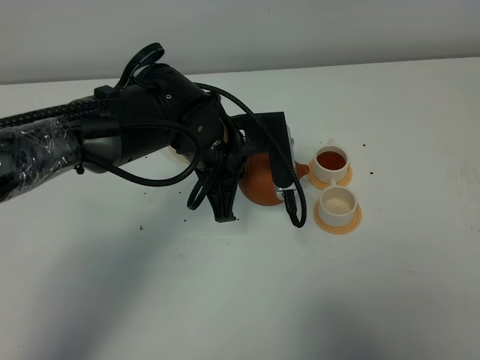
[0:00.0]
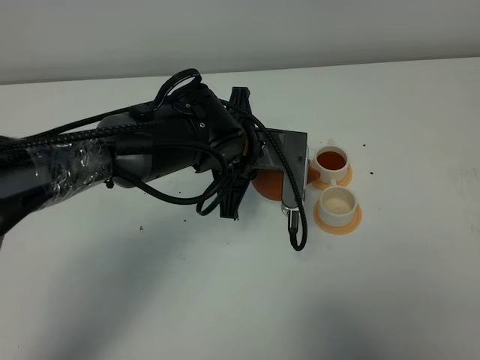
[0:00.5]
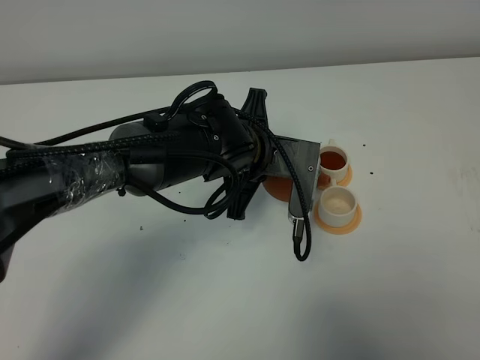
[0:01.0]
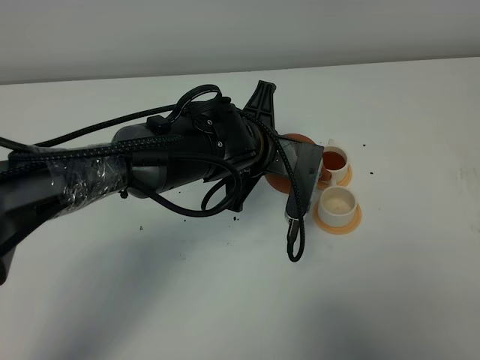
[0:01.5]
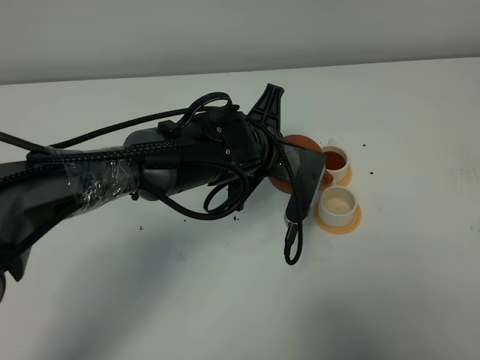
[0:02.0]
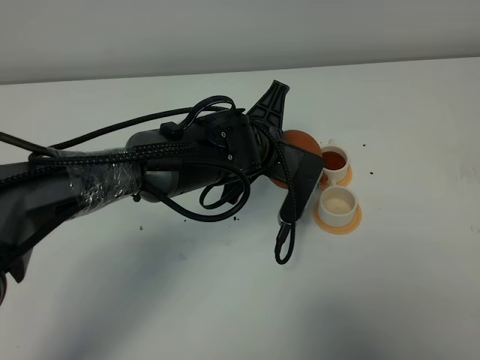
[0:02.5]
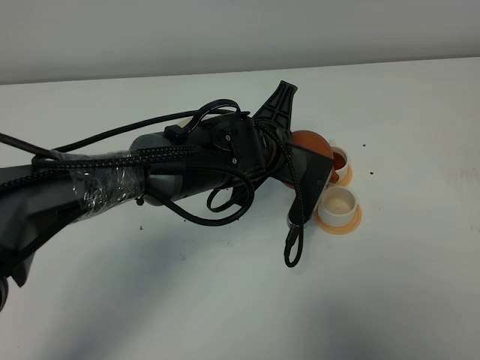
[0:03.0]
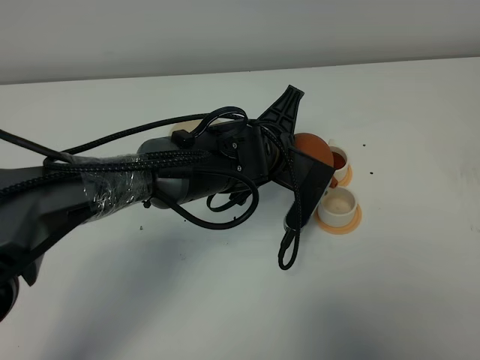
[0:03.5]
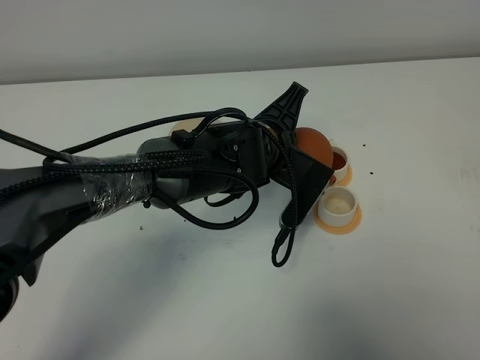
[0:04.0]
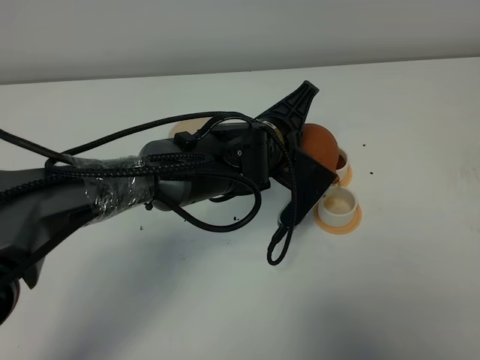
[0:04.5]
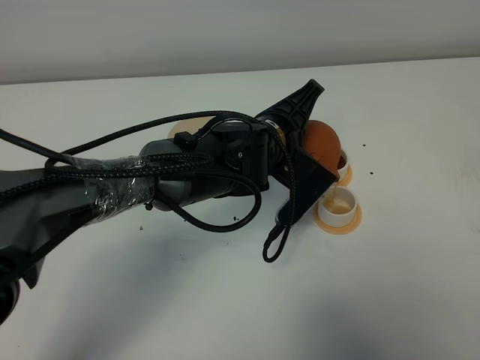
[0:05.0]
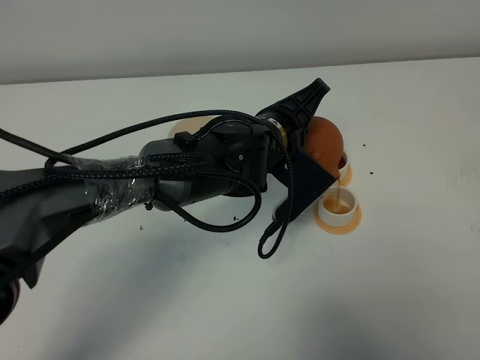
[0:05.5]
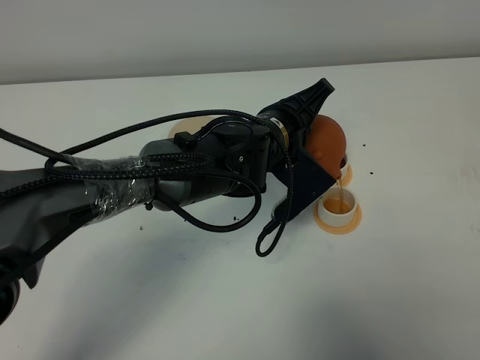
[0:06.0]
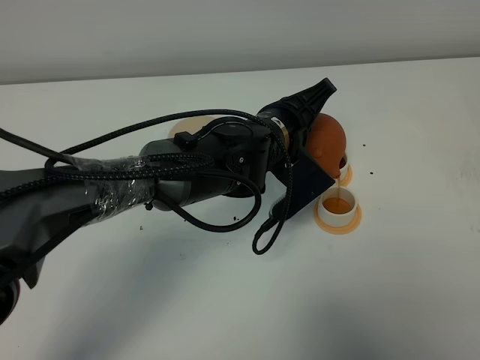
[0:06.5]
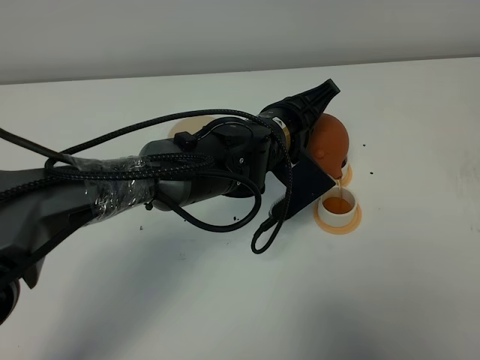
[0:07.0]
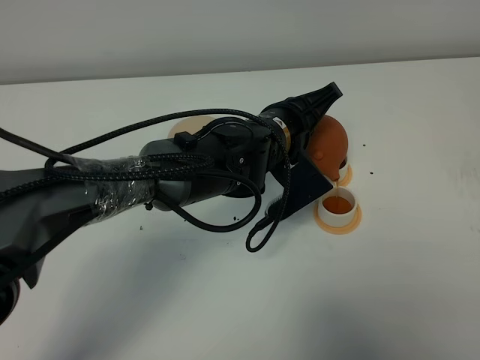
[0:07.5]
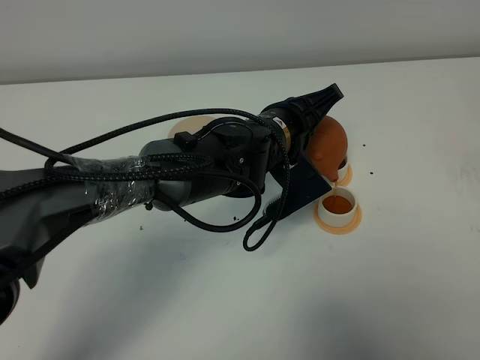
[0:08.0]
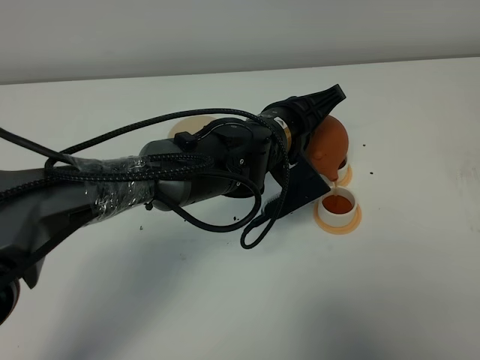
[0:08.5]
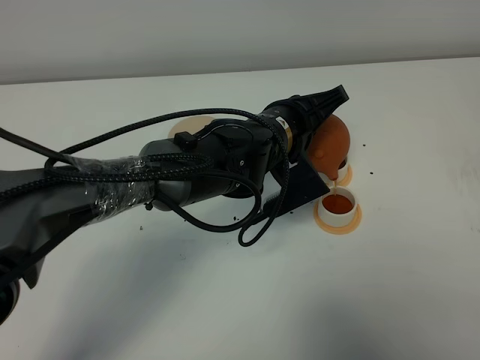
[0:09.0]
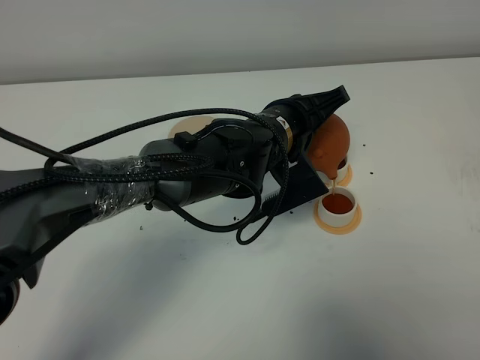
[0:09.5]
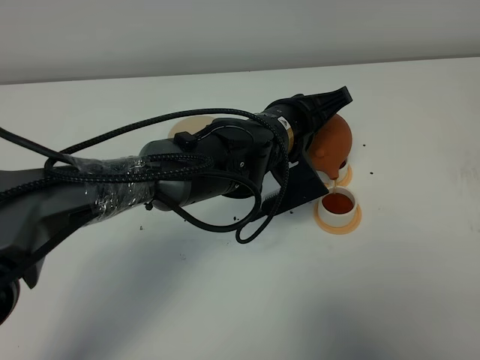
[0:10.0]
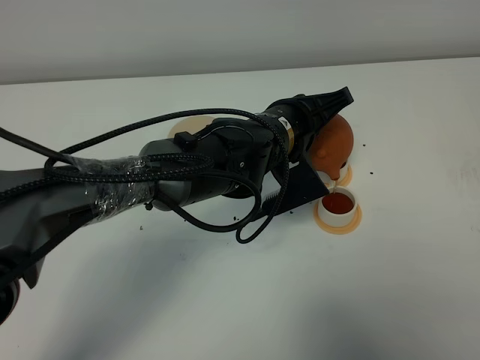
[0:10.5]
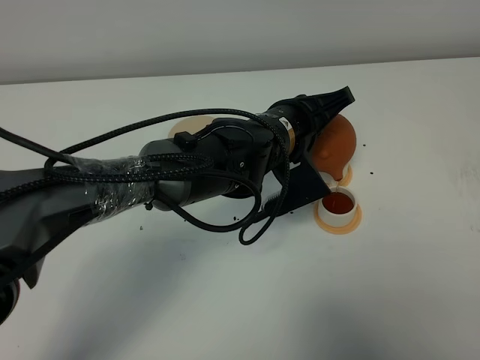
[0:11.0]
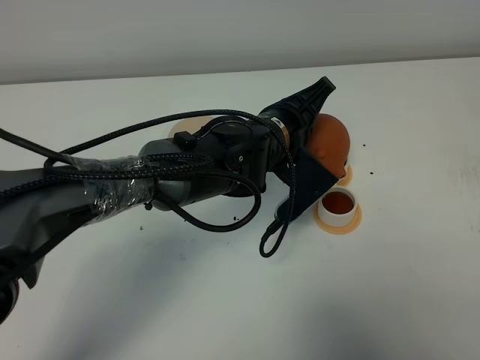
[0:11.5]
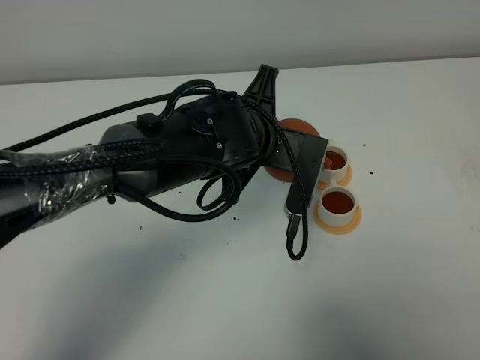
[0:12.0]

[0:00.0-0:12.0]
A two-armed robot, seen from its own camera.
Task of the whole recording: grasp the brown teapot and pour the tea into the two white teacups one by one, put the brown teapot back in its original place.
Step, 0:00.0 to 0:11.5: Pour tea into the teacup with the left gripper.
0:00.0 to 0:02.0: The left gripper ends up some 5 cm from where it was.
0:02.0 to 0:04.0: The grippers stay close to where they were, moving slightly.
0:04.0 to 0:06.0: The grippers move only a little.
0:06.0 to 0:10.0: The grippers stay close to where they were, moving slightly.
0:10.0 to 0:12.0: The left gripper changes place by roughly 5 cm.

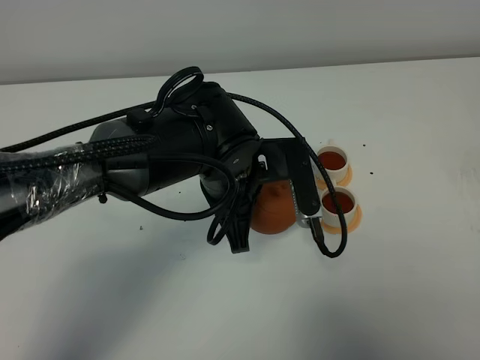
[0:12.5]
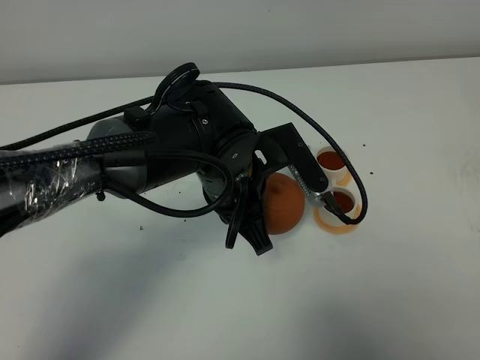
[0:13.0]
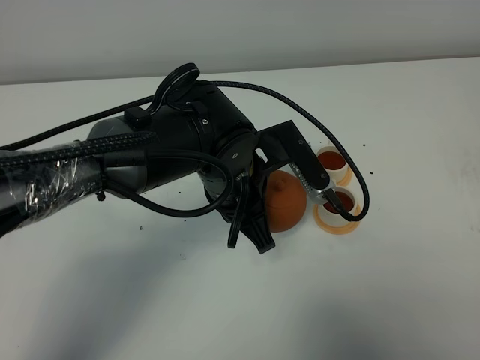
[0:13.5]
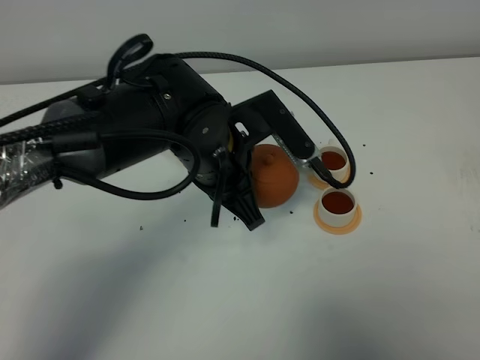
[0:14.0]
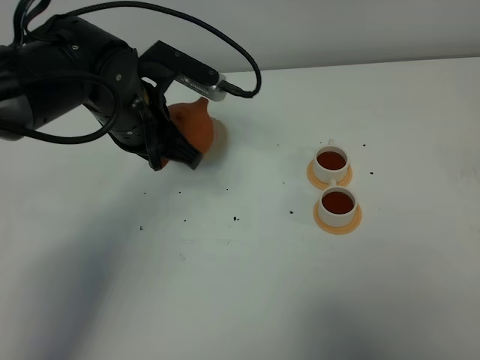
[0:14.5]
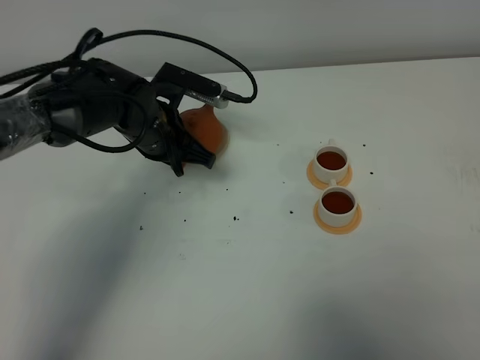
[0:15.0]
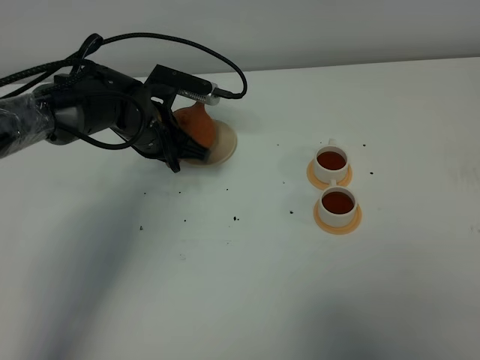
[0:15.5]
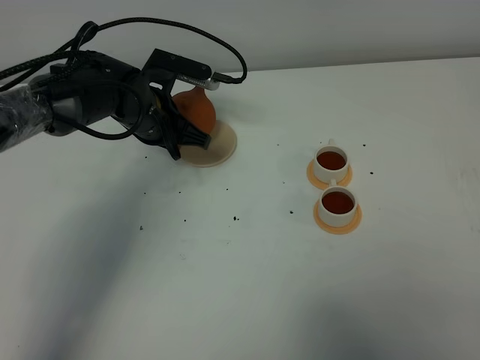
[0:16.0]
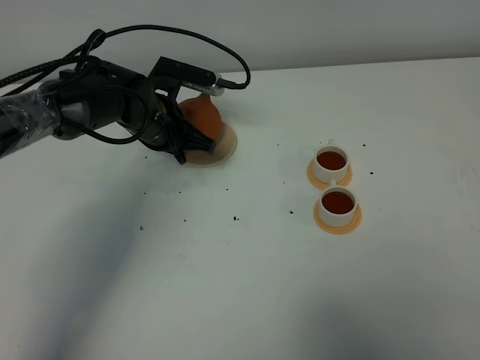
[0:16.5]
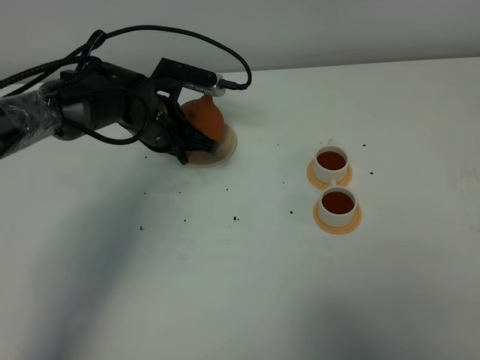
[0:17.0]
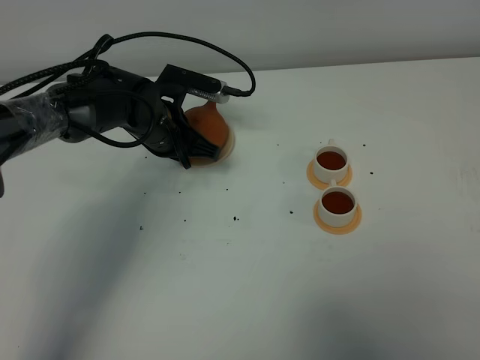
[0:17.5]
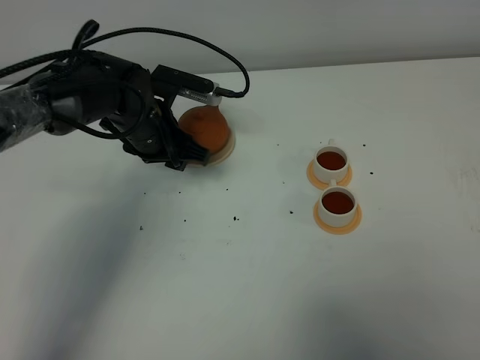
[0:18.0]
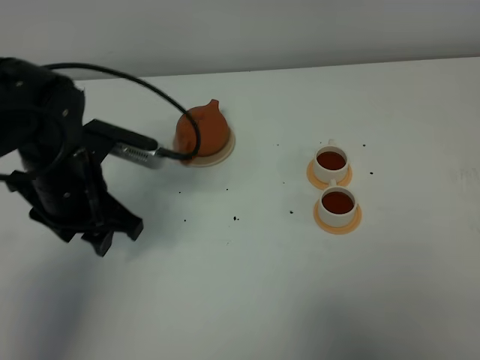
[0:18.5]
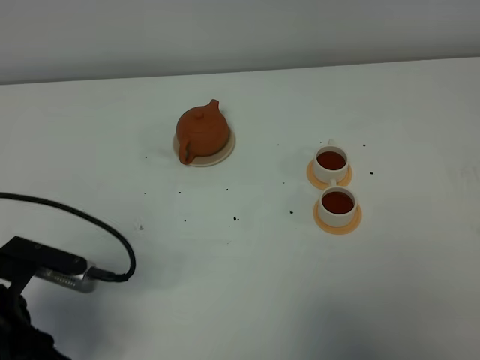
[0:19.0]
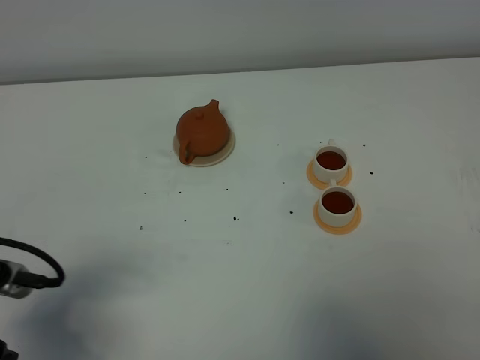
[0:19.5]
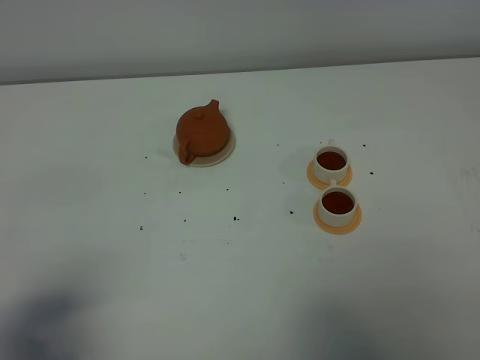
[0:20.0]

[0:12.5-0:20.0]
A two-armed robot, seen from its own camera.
Task of the whole recording: grasp the brown teapot and pour the tea into the two white teacups one by one, put the brown teapot back in its original place.
0:12.5 to 0:14.5: The left gripper travels to the left and forward by approximately 15 cm.
0:14.5 to 0:16.5: The left gripper moves downward and forward, some 10 cm.
0:16.5 to 0:18.0: The left gripper opens its fingers.
0:18.0 to 0:20.0: The left gripper travels backward and to the left by roughly 40 cm.

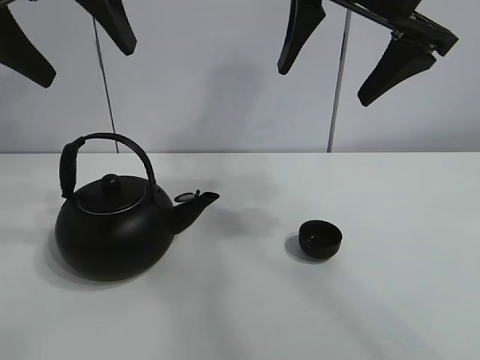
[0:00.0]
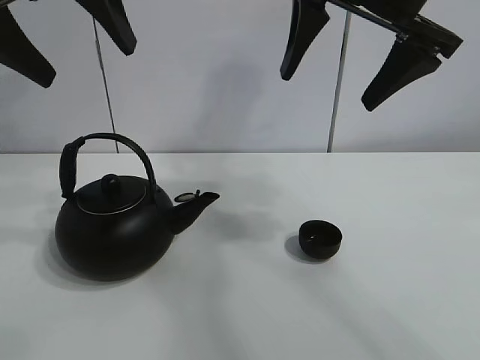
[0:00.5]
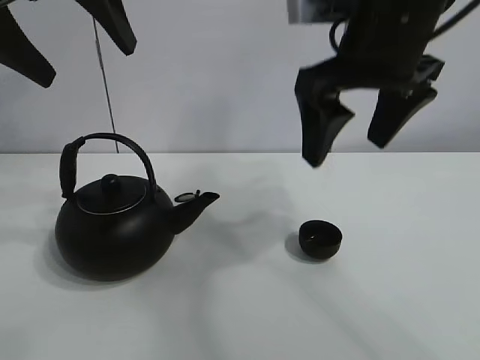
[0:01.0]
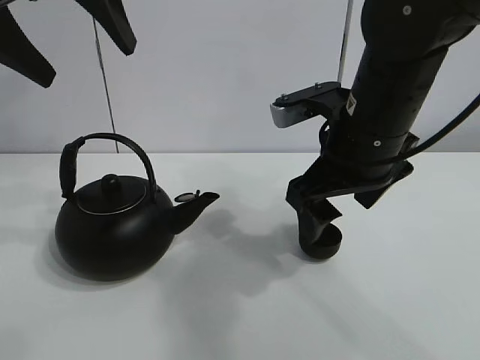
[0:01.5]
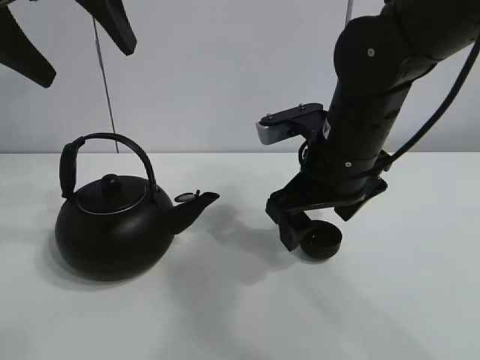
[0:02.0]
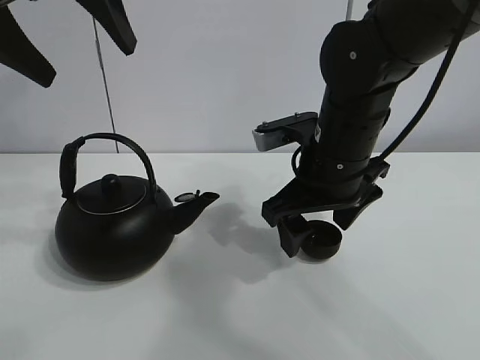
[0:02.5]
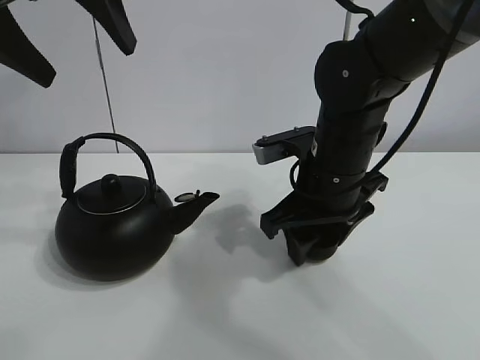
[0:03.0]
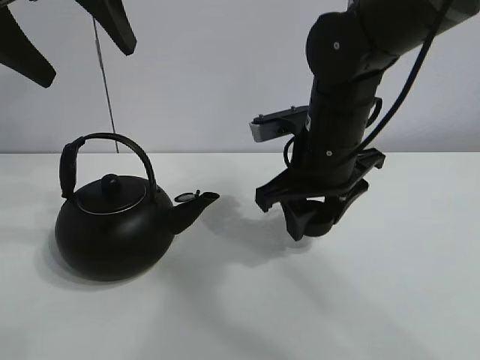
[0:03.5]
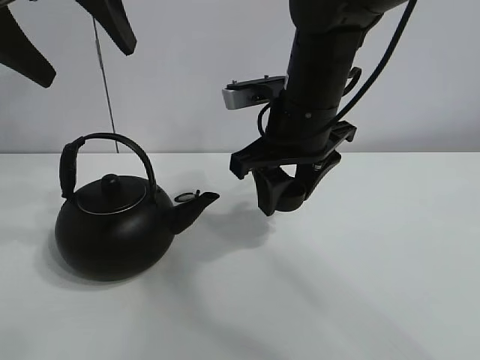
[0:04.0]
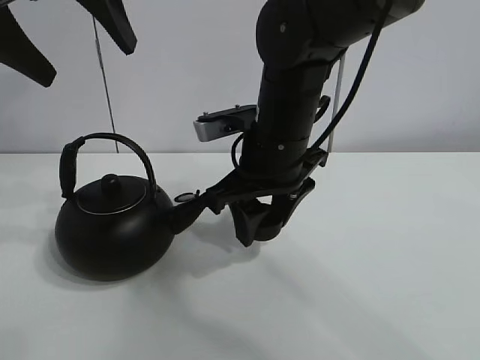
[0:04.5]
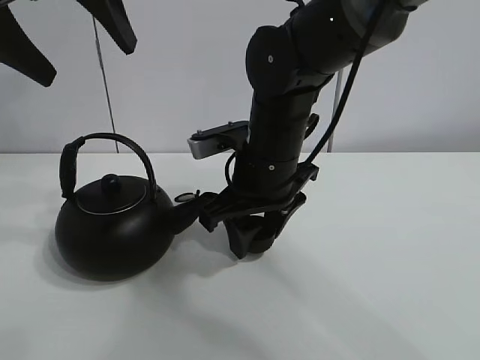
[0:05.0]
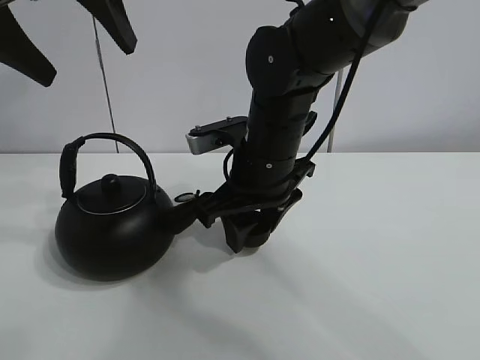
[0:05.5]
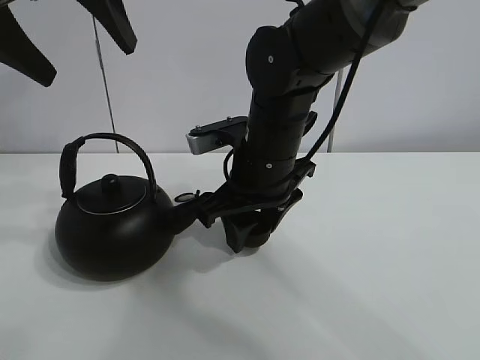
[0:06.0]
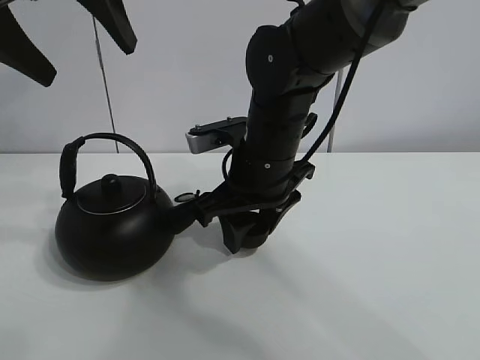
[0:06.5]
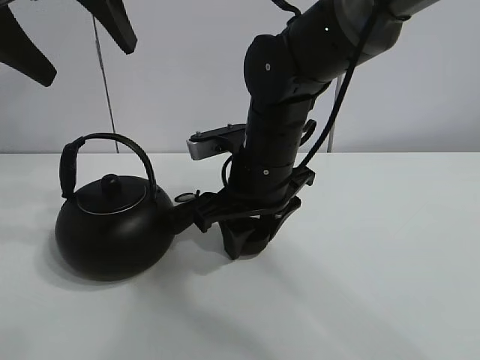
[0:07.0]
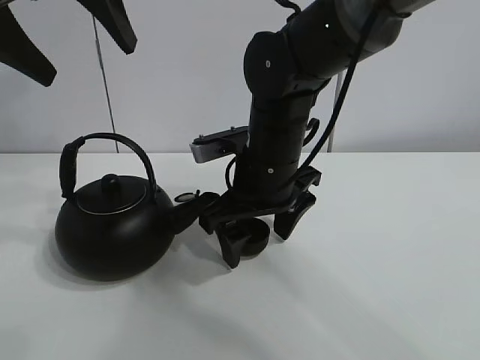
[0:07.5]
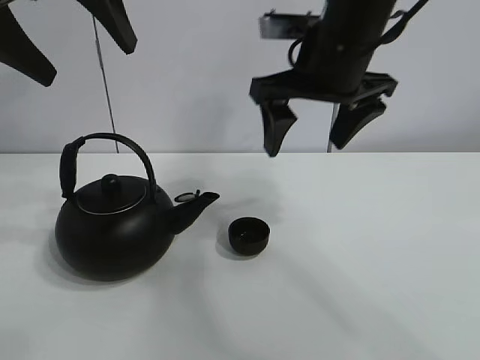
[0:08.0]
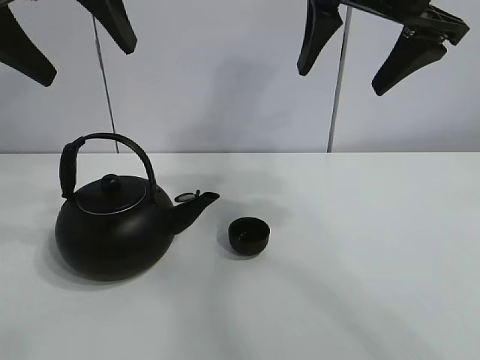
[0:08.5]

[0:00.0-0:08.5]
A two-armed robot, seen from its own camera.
Task of the whole recording: pour tea into the teacup.
Step, 0:00.0 to 0:03.0: Pick up the teacup with the right gripper.
Step, 0:03.5 to 0:07.5: Place the teacup in the center of view with the right gripper.
0:02.0 to 0:04.0: The right gripper changes place by some 5 cm, and closes up.
0:04.0 to 0:06.5: The right gripper moves approximately 5 cm.
0:06.5 to 0:08.5: The right gripper heads upward and to the right, covering about 20 cm, and opens up.
